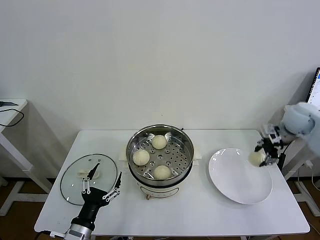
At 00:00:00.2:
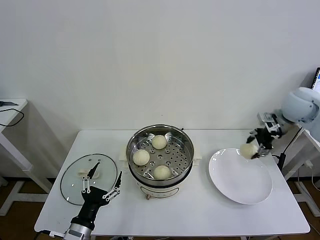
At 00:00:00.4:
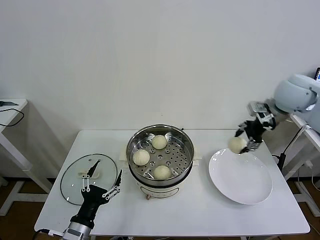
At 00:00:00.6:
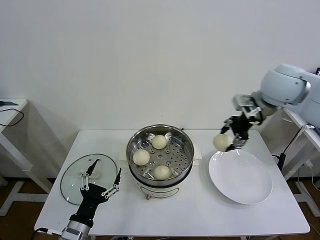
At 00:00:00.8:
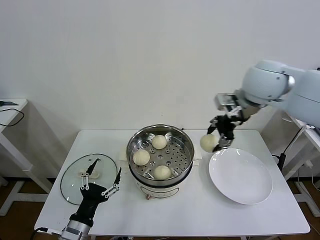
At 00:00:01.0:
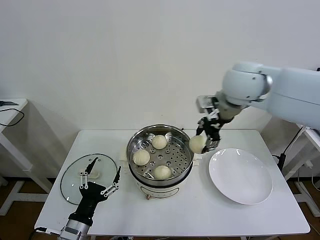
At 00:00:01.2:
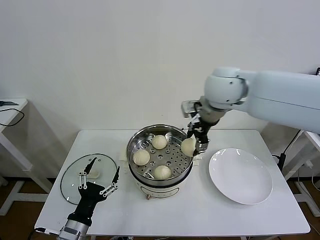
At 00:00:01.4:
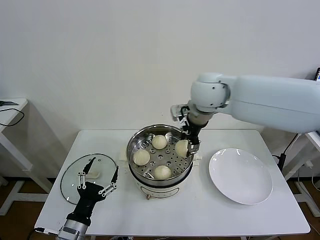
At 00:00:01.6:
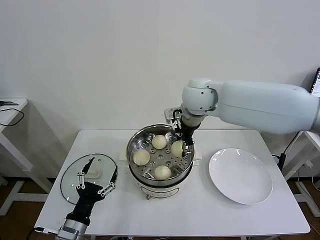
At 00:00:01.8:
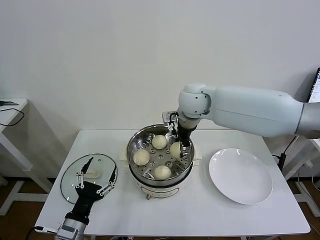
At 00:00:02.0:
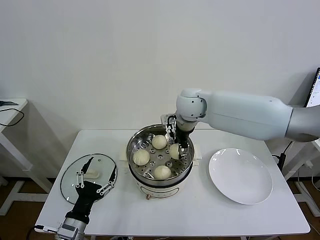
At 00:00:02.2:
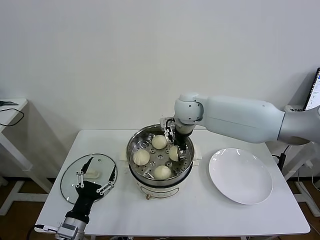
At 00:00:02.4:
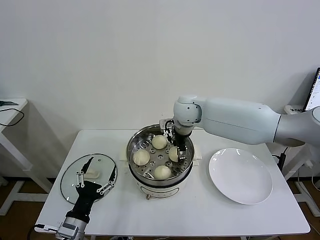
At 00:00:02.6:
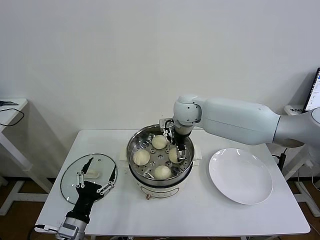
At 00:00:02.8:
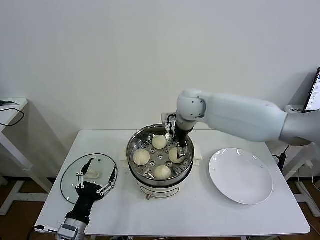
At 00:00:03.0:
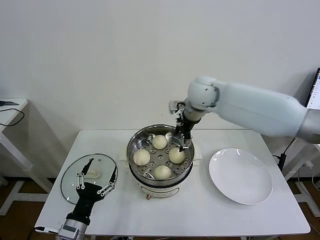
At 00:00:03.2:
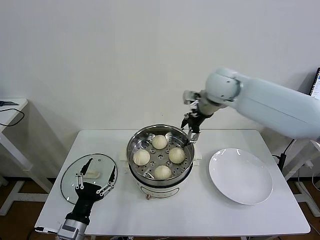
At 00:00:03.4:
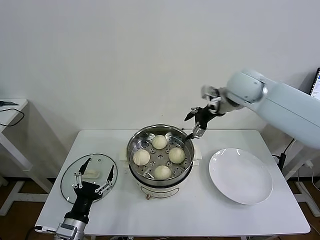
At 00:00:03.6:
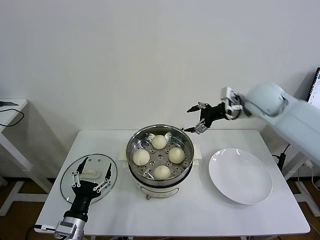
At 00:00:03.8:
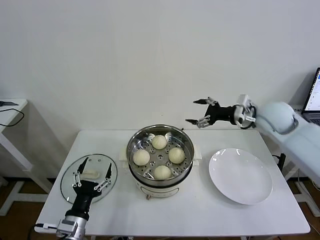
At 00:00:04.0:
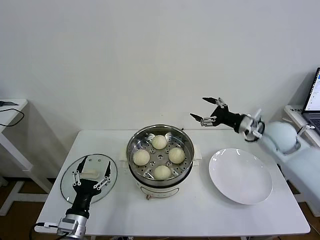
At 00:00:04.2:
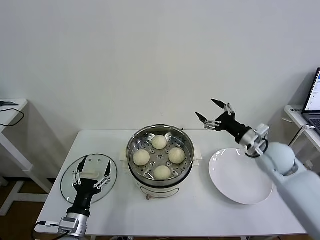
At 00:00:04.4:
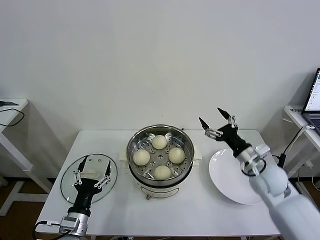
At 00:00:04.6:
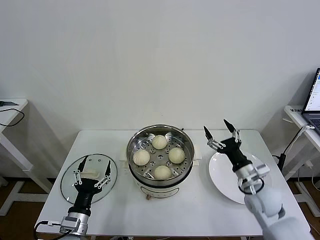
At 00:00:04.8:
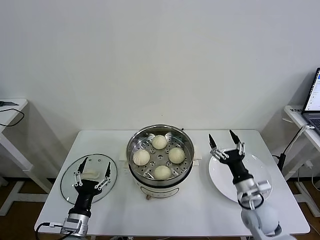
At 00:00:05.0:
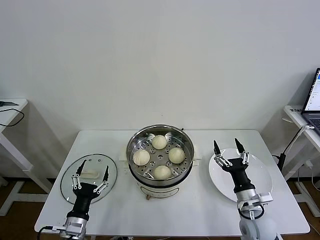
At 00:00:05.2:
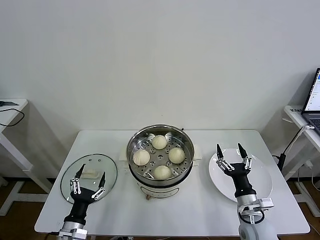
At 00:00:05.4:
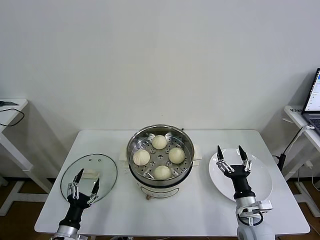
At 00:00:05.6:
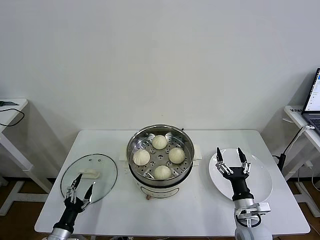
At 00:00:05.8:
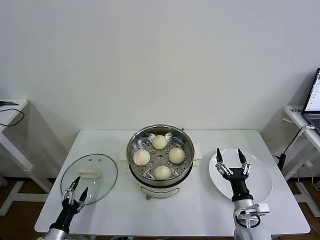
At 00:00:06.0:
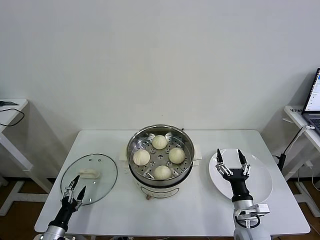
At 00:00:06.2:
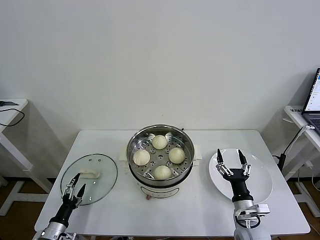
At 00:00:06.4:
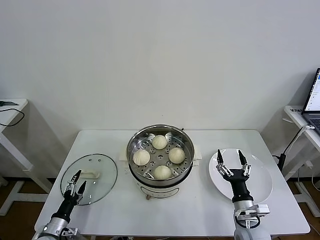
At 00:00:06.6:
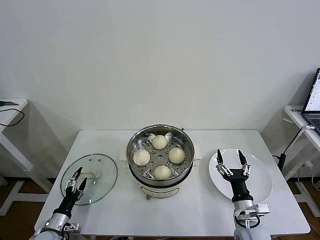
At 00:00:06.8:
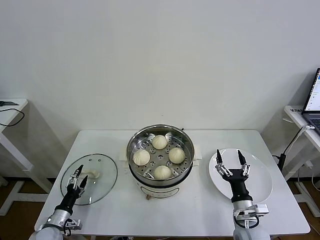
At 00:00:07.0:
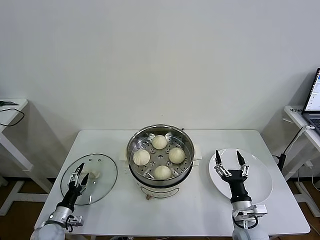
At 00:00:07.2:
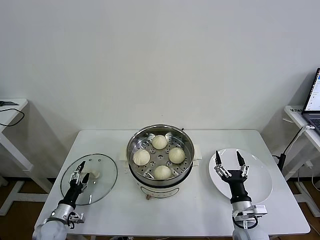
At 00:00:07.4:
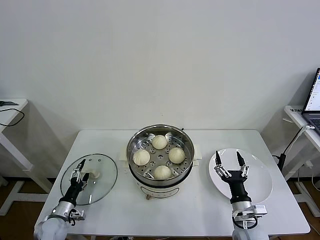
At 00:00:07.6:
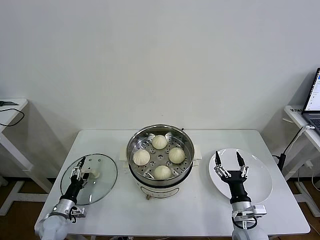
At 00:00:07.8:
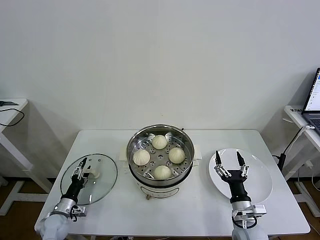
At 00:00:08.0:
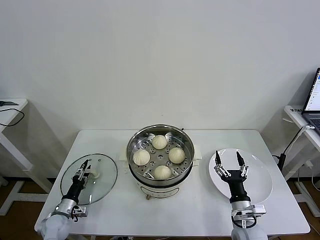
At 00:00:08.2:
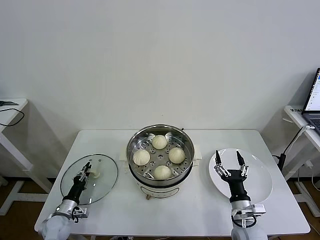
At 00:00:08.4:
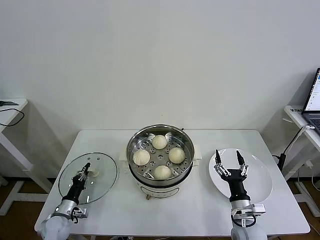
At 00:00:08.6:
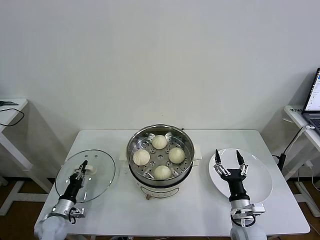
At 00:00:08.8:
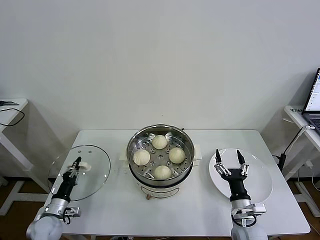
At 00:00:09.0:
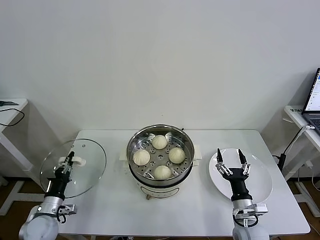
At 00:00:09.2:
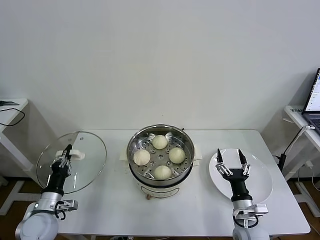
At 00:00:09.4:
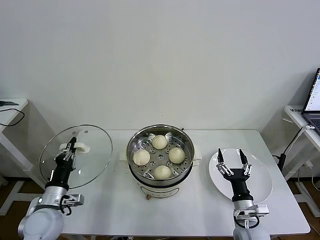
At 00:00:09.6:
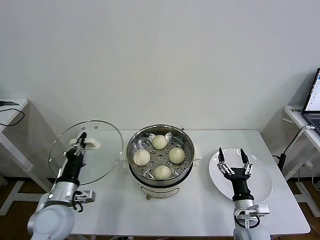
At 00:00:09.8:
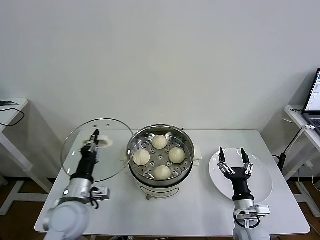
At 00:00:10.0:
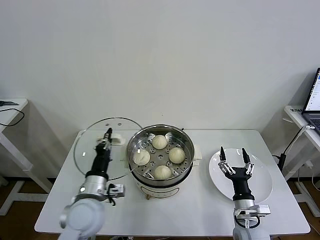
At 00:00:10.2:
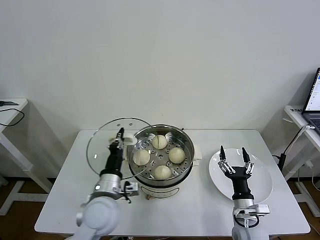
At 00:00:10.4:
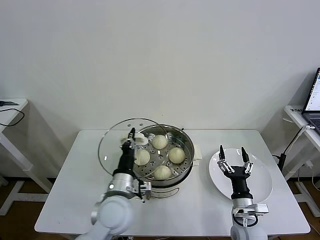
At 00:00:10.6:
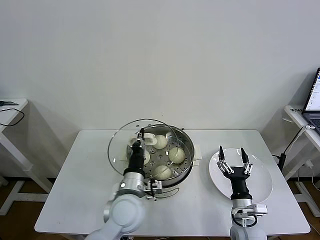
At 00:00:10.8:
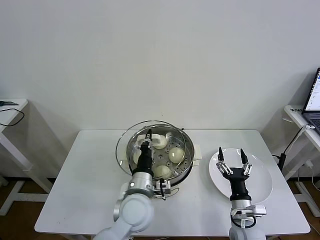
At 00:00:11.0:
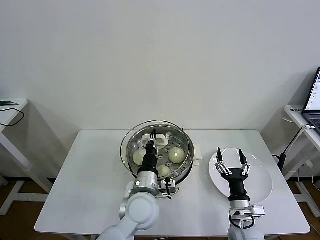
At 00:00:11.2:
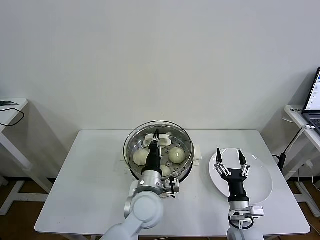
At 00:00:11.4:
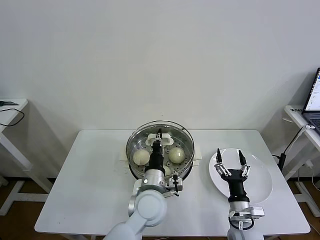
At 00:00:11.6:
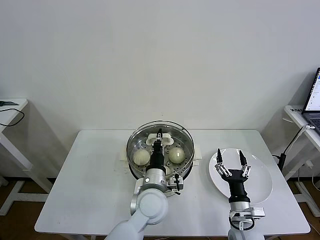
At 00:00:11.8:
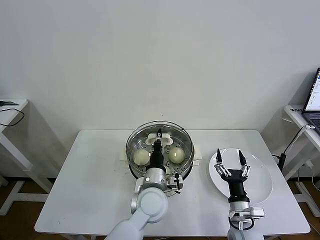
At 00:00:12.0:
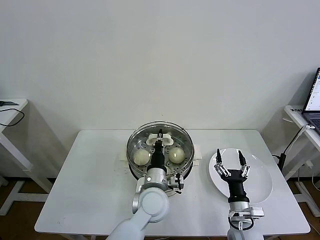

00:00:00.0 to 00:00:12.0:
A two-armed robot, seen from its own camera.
Task of the whole recording: take steamed baozi put them in steamer then cover it.
Step, 00:00:00.0 to 00:00:02.6: Place the baozi on the steamer with right gripper.
Step, 00:00:02.8 to 00:00:08.4: Grasp the pot lid with left gripper.
00:00:00.0 to 00:00:01.6: The right gripper shifts roughly 35 cm to the left.
00:00:01.6 to 00:00:03.0: The right gripper reaches roughly 10 cm downward, then returns, and opens up.
00:00:03.0 to 00:00:04.4: The right gripper shifts roughly 35 cm to the right, downward and backward.
00:00:04.4 to 00:00:06.0: The right gripper goes approximately 20 cm downward and backward, while the left gripper travels to the left and downward by some 15 cm.
00:00:06.0 to 00:00:07.6: The left gripper heads forward, covering roughly 10 cm.
00:00:07.6 to 00:00:09.0: The left gripper shifts roughly 5 cm upward, and closes its fingers.
00:00:09.0 to 00:00:10.4: The left gripper shifts approximately 30 cm to the right and upward.
00:00:10.4 to 00:00:12.0: The left gripper shifts roughly 10 cm to the right.

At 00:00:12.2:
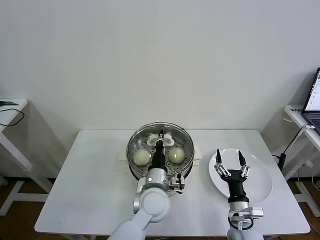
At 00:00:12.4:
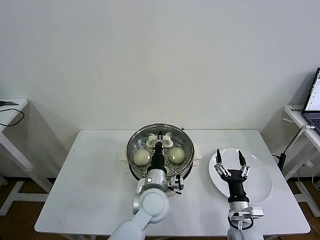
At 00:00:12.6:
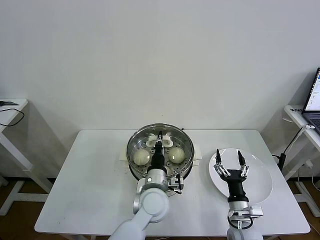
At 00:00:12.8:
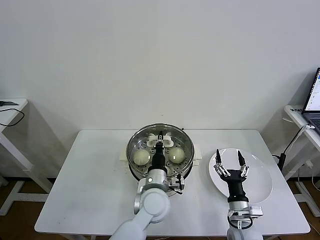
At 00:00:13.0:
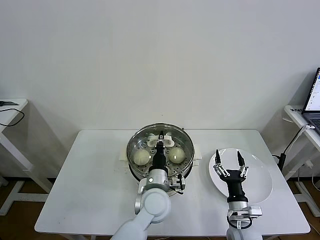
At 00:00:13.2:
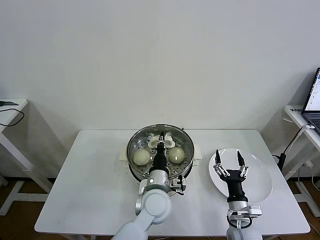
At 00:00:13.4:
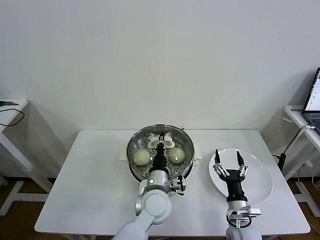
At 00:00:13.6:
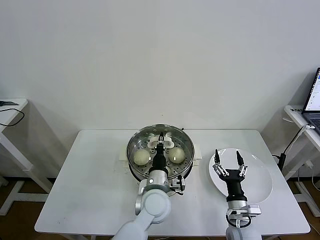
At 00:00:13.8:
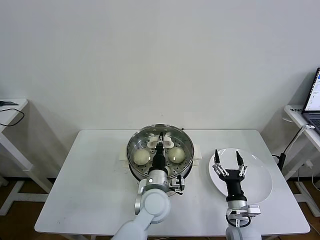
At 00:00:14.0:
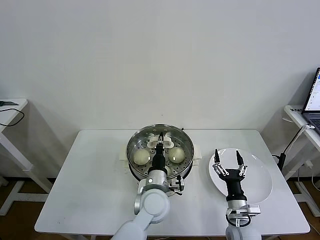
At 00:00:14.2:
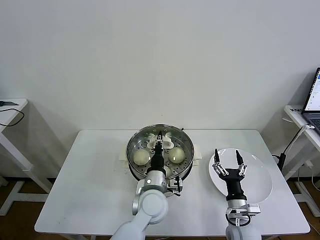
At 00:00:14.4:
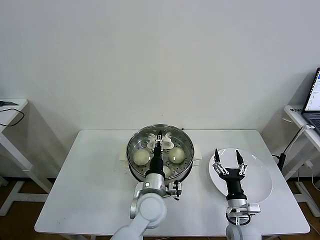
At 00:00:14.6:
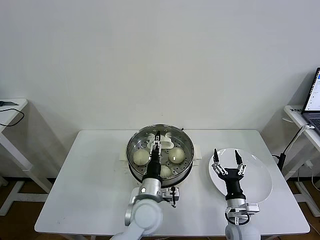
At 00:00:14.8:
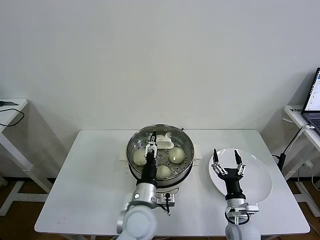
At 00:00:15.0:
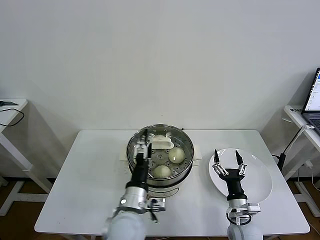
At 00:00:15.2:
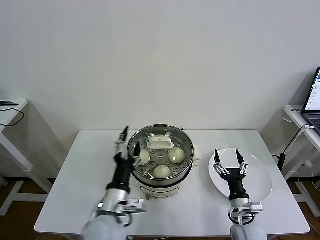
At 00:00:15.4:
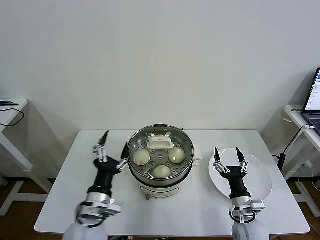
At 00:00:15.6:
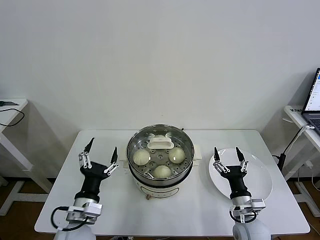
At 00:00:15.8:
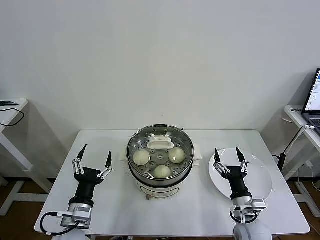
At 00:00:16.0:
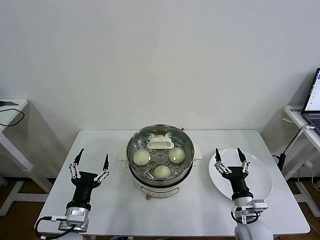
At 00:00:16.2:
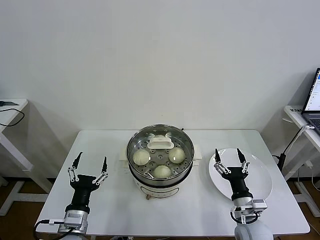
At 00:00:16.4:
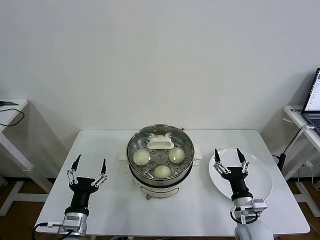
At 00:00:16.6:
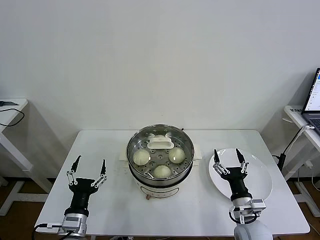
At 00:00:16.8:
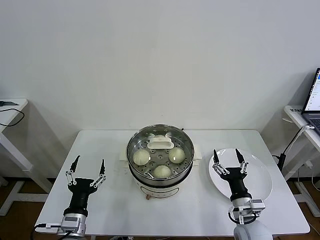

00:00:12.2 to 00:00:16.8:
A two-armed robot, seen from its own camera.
Task of the whole recording: take steamed baozi put them in steamer then cover it.
Step, 00:00:12.2 to 00:00:14.8: Place the pot lid on the steamer with left gripper.
00:00:12.2 to 00:00:13.8: Neither gripper changes place.
00:00:13.8 to 00:00:15.2: The left gripper shifts approximately 15 cm to the left and backward, and opens up.
00:00:15.2 to 00:00:16.8: The left gripper shifts some 15 cm to the left and downward.
